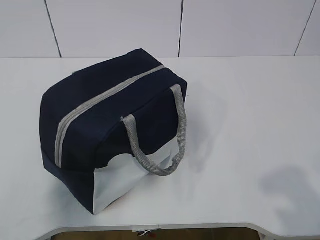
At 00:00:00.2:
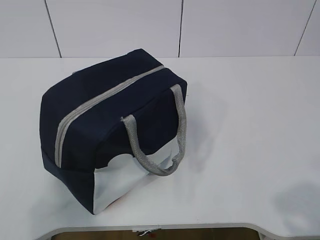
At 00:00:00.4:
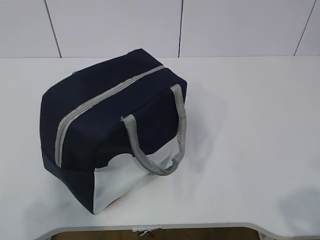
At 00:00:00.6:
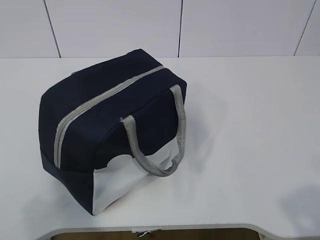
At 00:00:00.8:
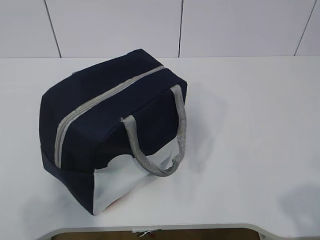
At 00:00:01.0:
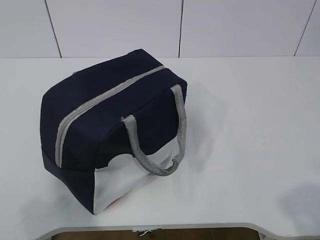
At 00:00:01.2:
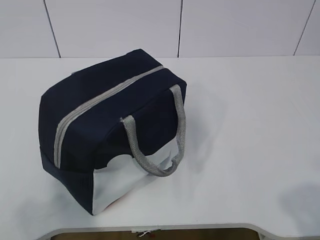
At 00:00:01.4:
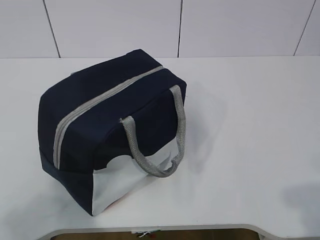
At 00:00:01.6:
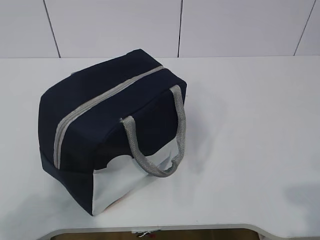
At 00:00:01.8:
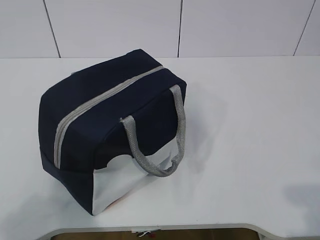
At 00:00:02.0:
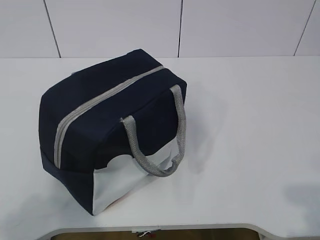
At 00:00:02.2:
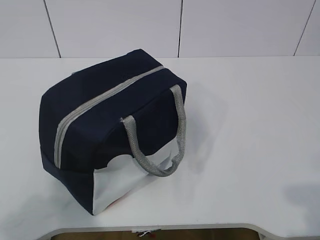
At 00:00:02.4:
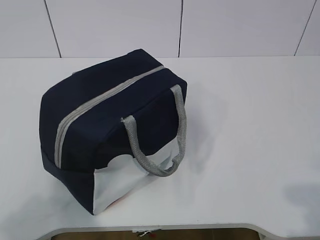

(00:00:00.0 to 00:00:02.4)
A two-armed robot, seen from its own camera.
00:00:00.0 - 00:00:01.2: The left gripper moves downward, about 5 cm.
